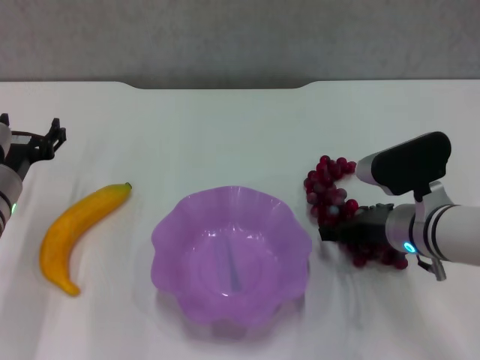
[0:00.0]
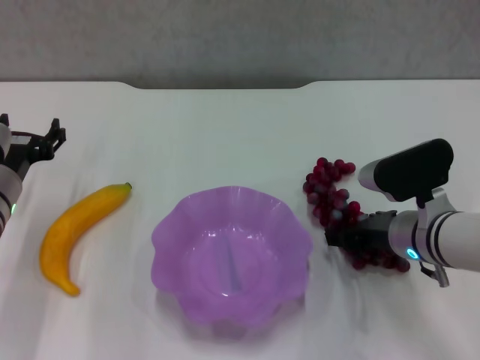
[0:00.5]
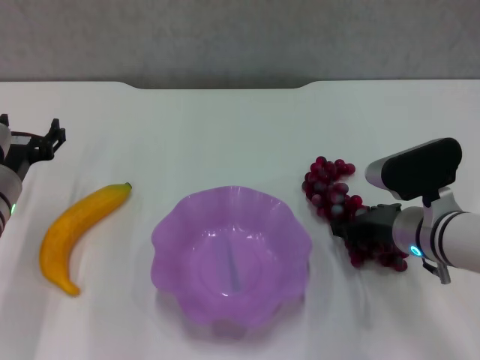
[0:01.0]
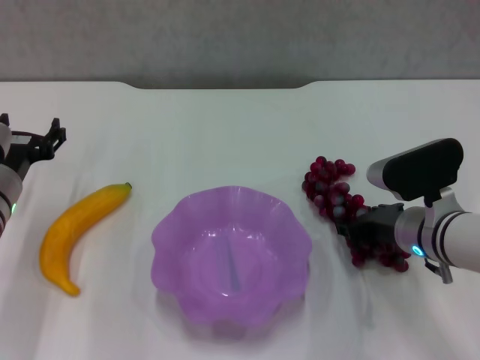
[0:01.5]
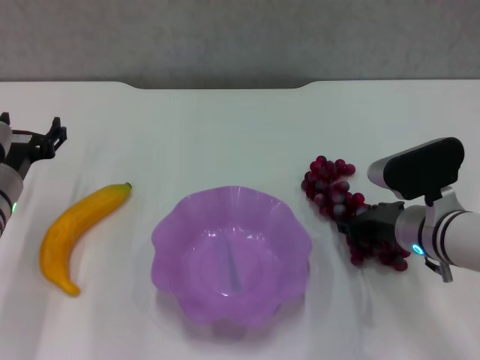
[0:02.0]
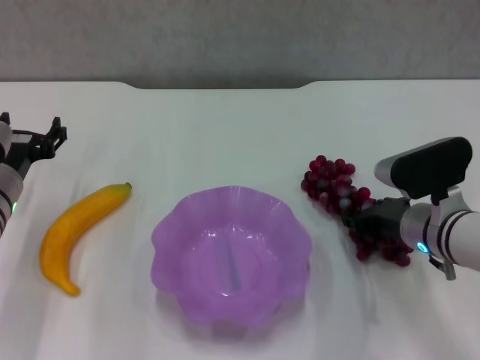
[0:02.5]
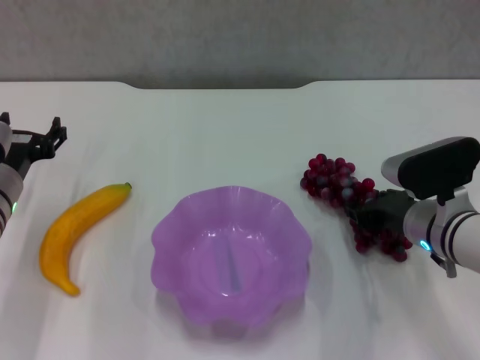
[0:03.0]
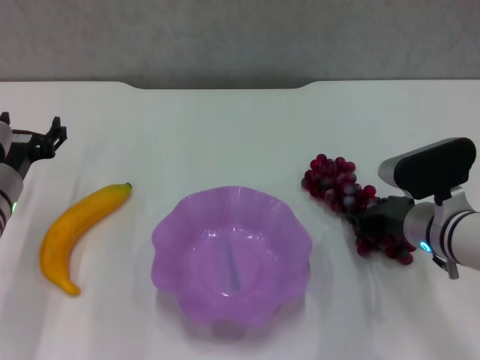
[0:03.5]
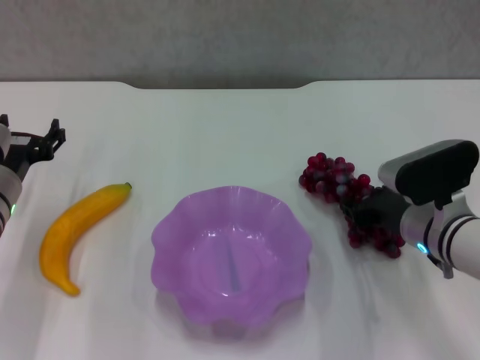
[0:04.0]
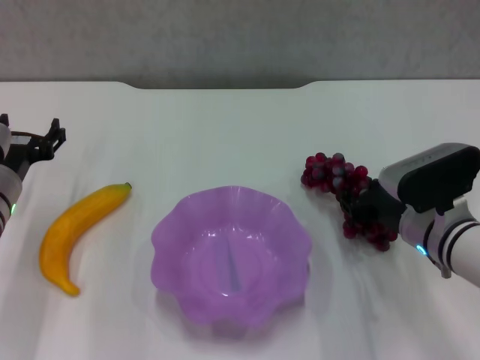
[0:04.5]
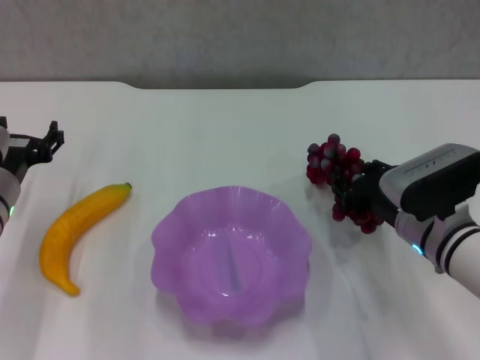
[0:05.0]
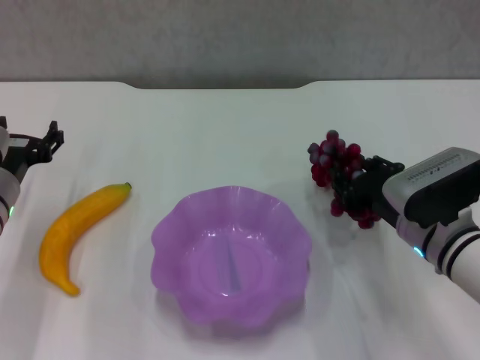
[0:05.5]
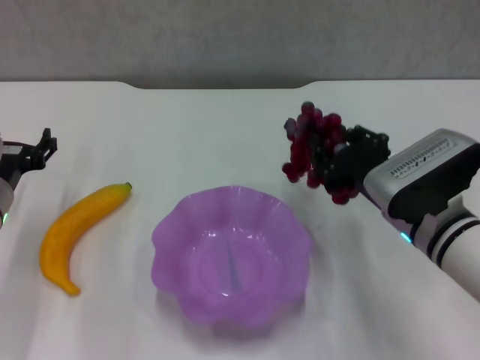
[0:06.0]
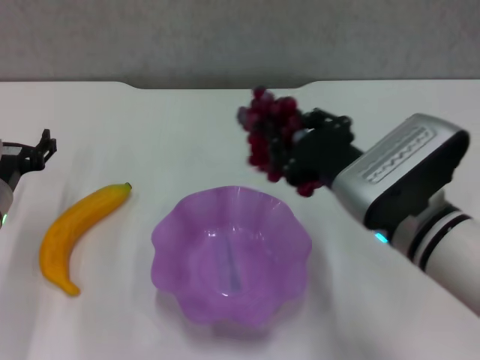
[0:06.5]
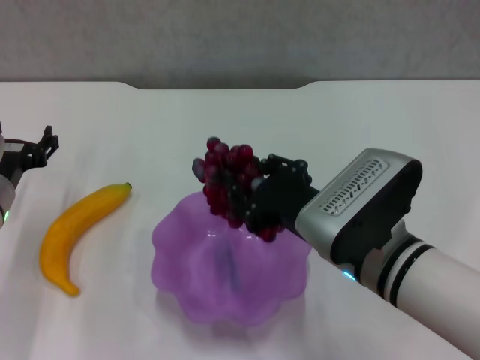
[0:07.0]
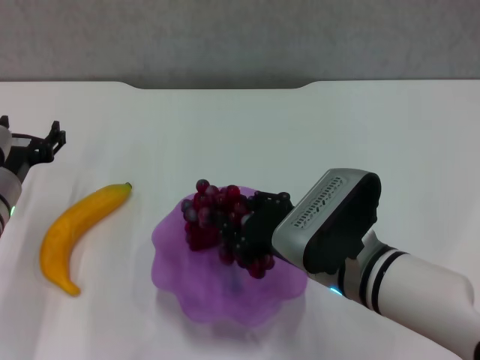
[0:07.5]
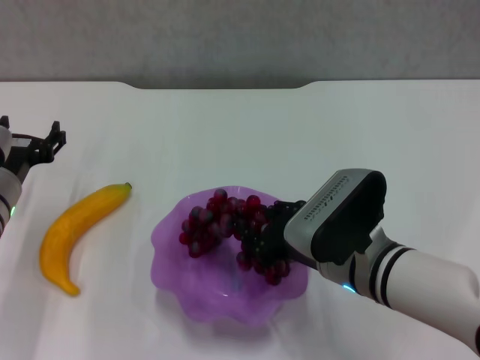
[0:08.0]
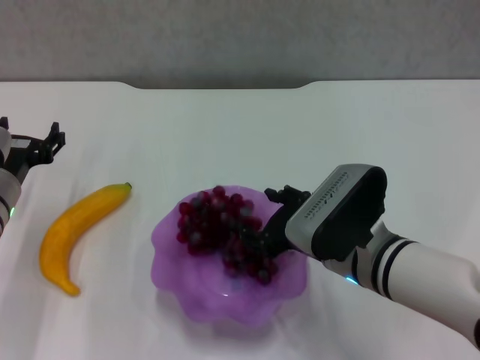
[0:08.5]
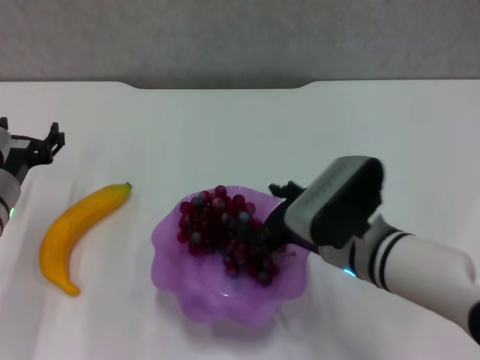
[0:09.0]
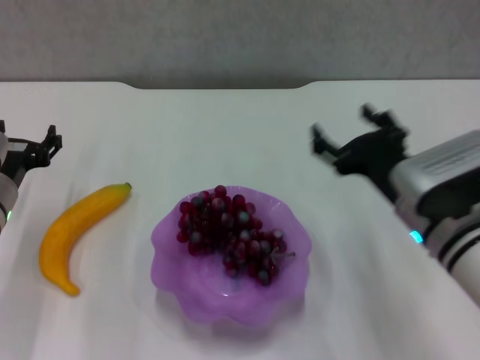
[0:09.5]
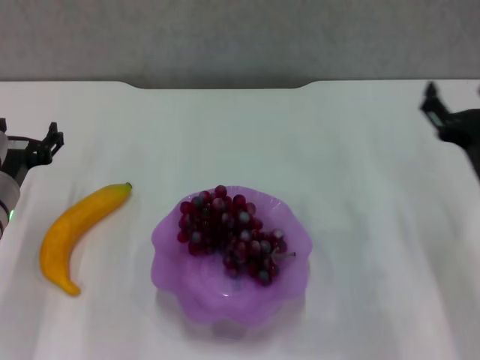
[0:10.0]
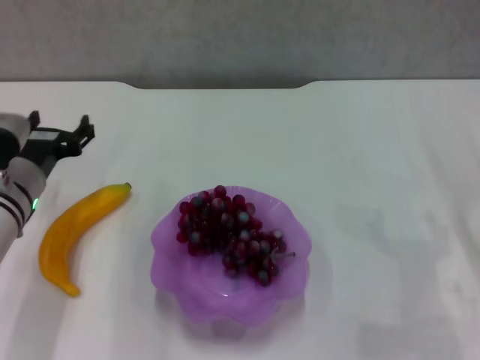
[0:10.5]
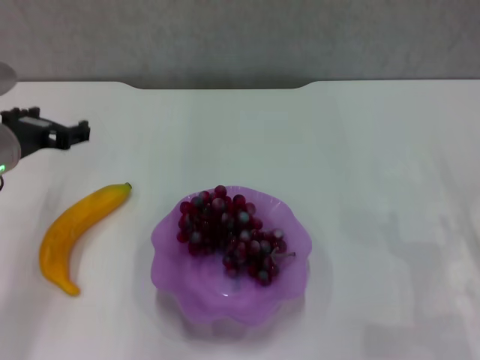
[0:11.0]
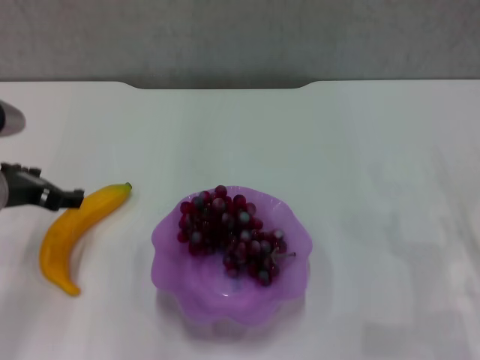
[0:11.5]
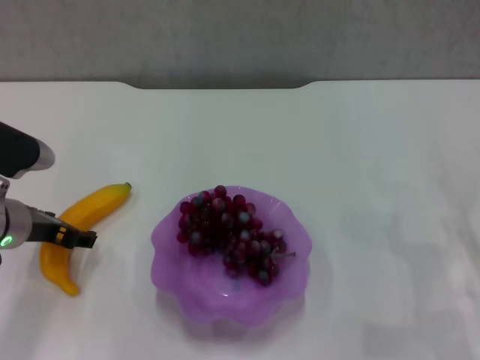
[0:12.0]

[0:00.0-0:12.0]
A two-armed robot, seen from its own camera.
Step, 0:01.0 to 0:08.5: Place the grape in the purple plate with right gripper.
0:00.0 to 0:02.0: The right gripper closes up.
0:02.0 to 0:04.0: The grippers stay close to where they were, moving slightly.
0:04.0 to 0:06.0: The right gripper changes place by roughly 5 cm.
0:06.0 to 0:08.0: The right gripper travels to the left by some 5 cm.
0:08.0 to 0:10.0: The right gripper travels to the right by about 15 cm, and opens its fingers.
0:10.0 to 0:12.0: The right gripper heads to the right, covering roughly 5 cm.

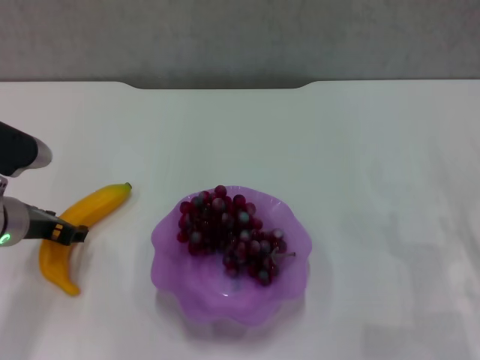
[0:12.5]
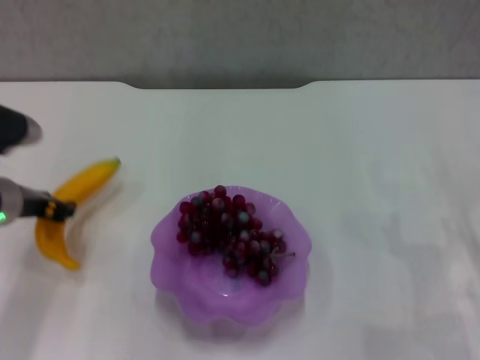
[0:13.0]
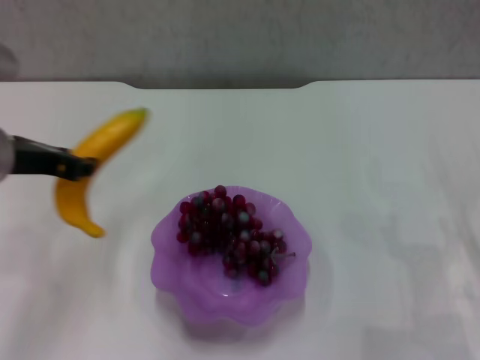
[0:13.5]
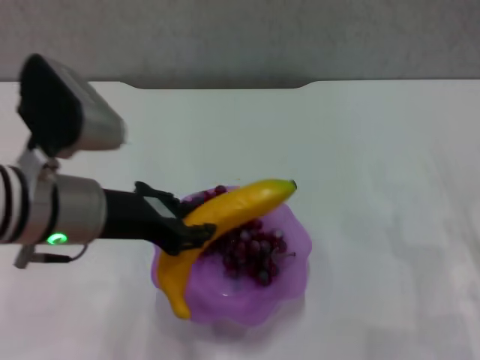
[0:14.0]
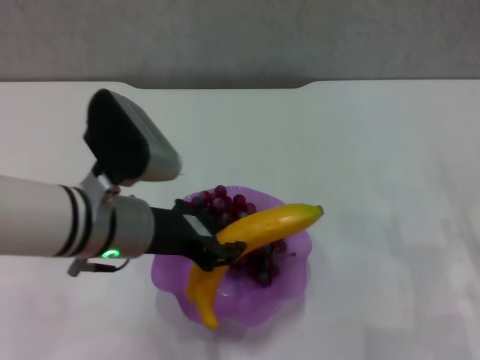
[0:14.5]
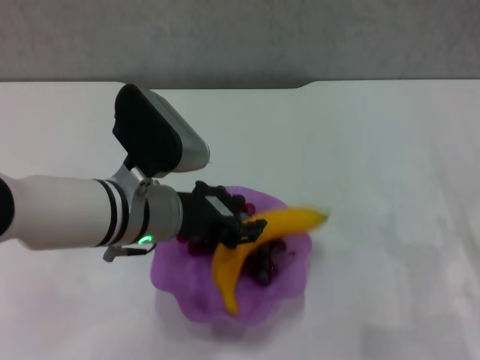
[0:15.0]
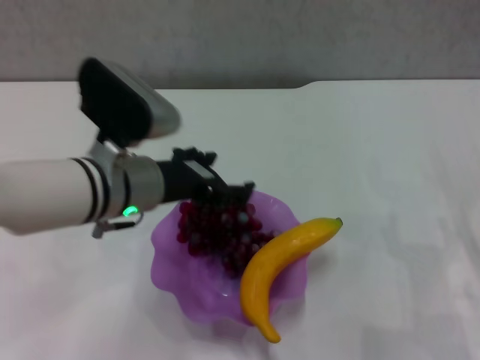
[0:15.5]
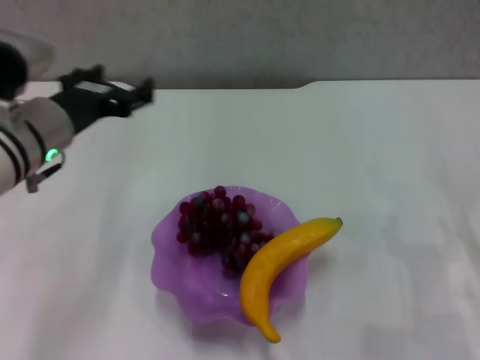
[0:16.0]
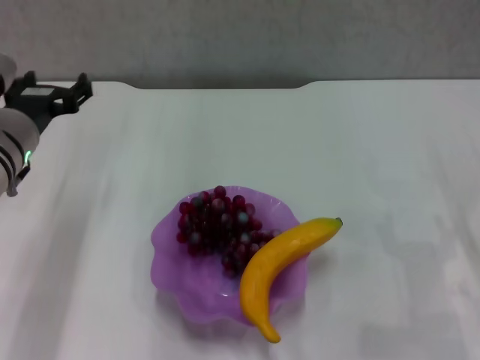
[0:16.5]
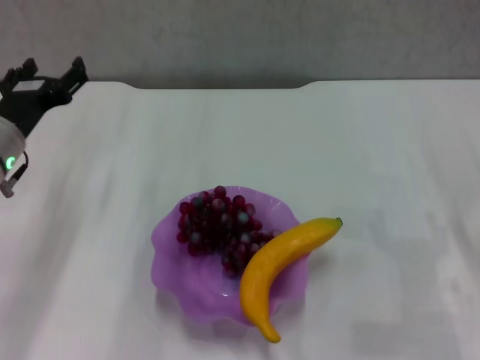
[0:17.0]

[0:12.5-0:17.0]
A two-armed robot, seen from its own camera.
Step, 0:13.0 to 0:15.0: Place the banana in the purple plate with left gripper.
0:12.5 to 0:14.5: The left gripper moves to the right and upward, roughly 15 cm, and closes its fingers.
0:14.5 to 0:17.0: The left gripper heads to the left and forward, covering some 15 cm, and opens its fingers.
